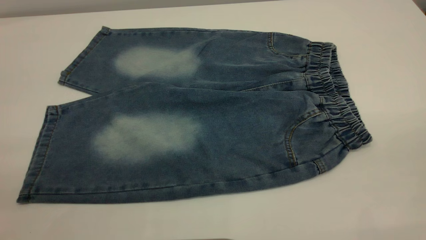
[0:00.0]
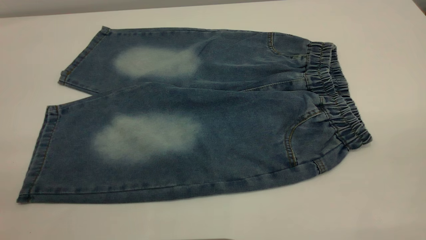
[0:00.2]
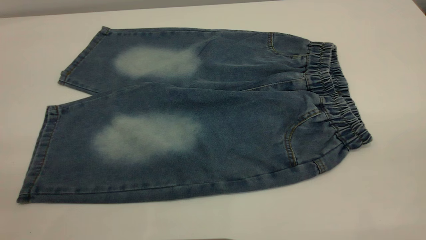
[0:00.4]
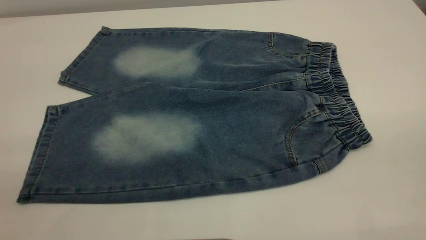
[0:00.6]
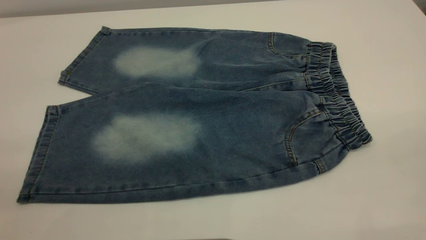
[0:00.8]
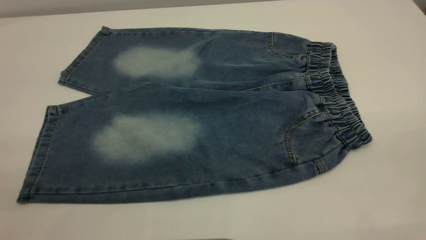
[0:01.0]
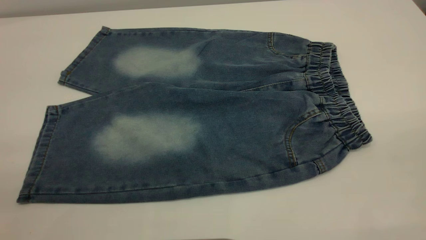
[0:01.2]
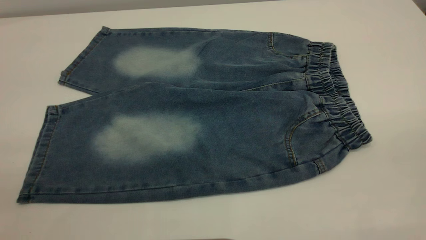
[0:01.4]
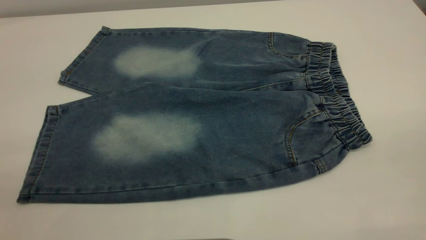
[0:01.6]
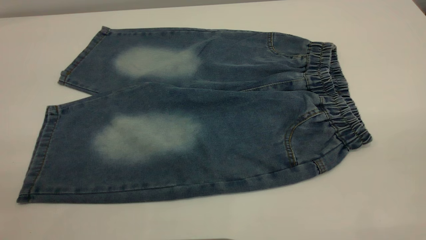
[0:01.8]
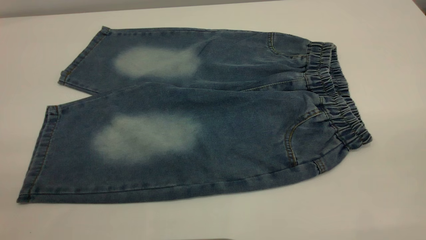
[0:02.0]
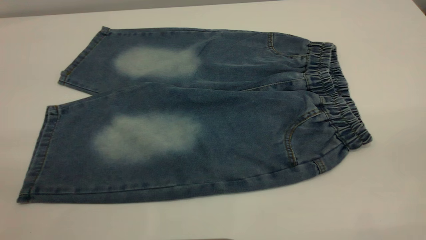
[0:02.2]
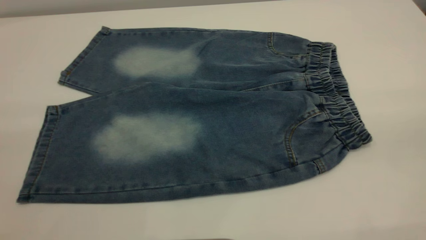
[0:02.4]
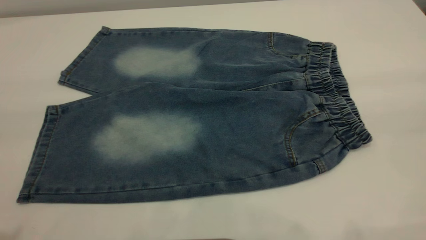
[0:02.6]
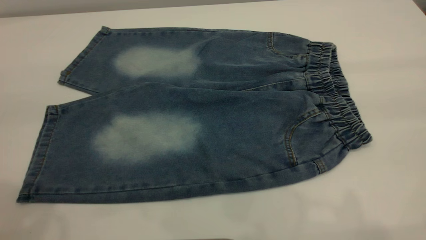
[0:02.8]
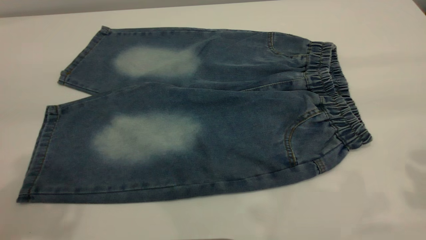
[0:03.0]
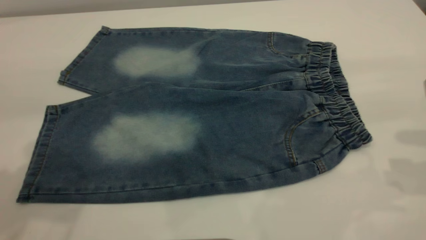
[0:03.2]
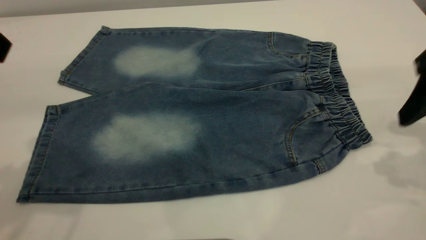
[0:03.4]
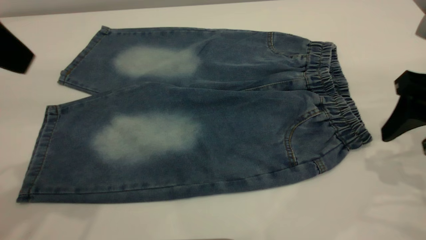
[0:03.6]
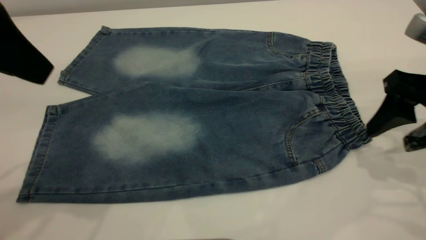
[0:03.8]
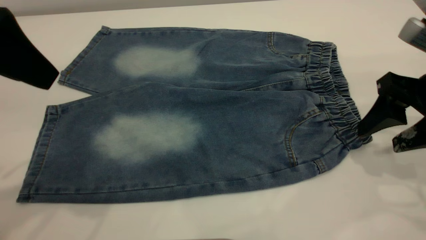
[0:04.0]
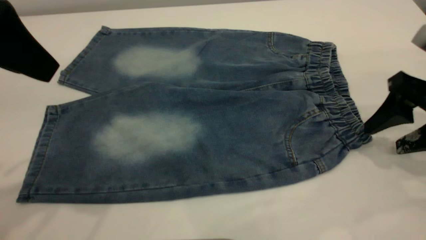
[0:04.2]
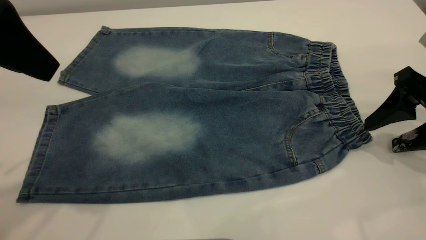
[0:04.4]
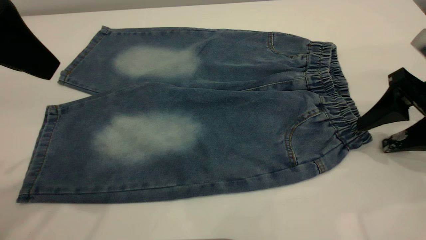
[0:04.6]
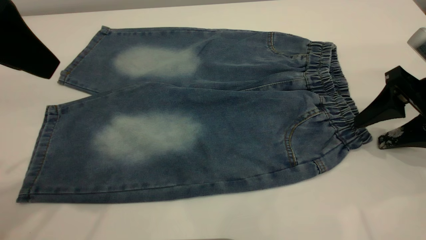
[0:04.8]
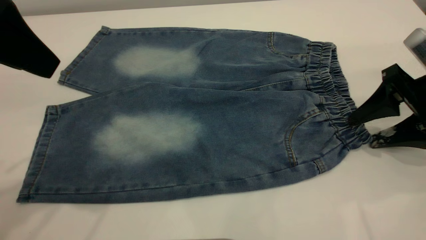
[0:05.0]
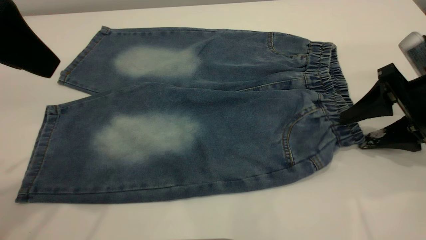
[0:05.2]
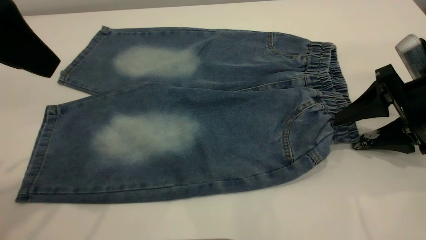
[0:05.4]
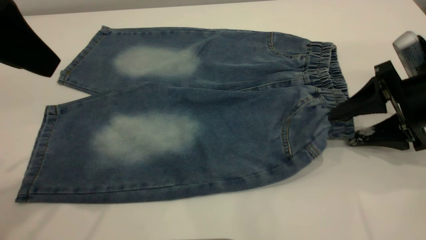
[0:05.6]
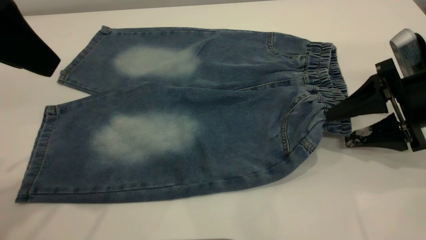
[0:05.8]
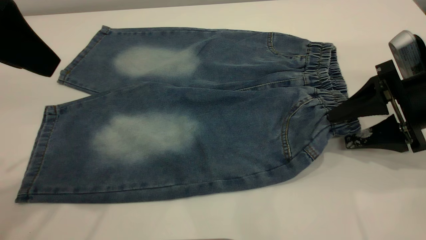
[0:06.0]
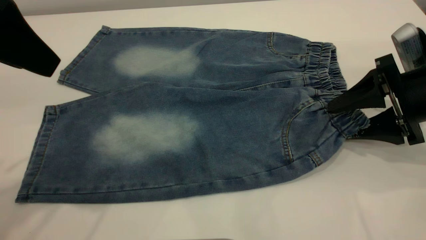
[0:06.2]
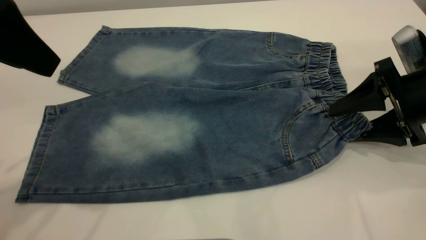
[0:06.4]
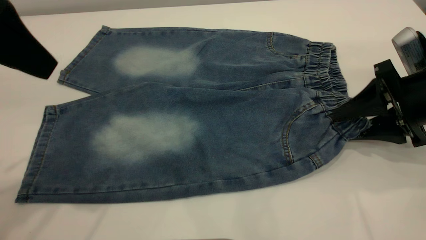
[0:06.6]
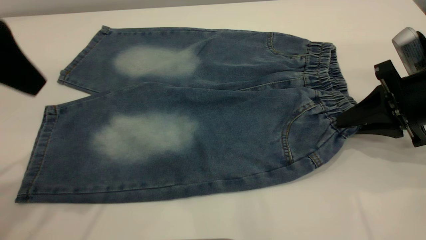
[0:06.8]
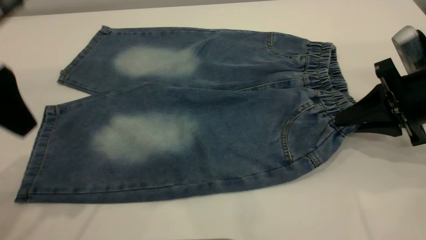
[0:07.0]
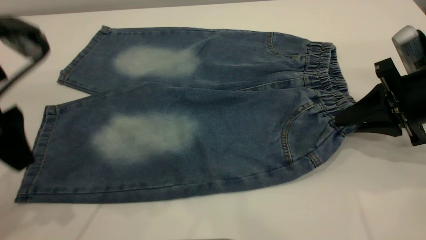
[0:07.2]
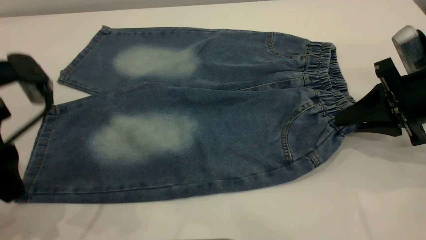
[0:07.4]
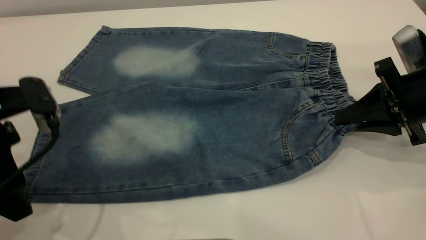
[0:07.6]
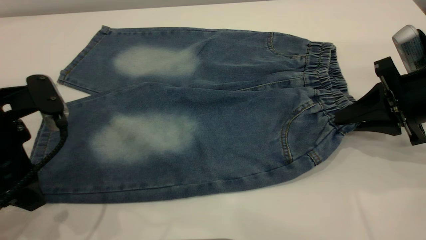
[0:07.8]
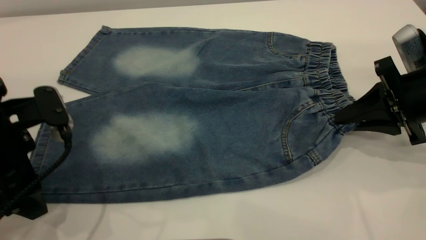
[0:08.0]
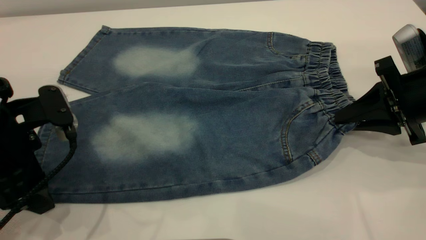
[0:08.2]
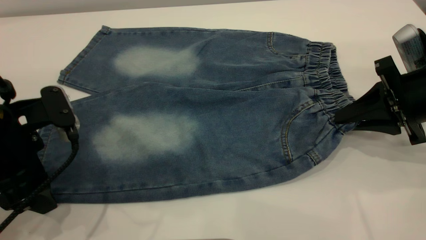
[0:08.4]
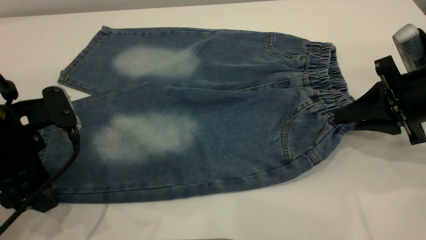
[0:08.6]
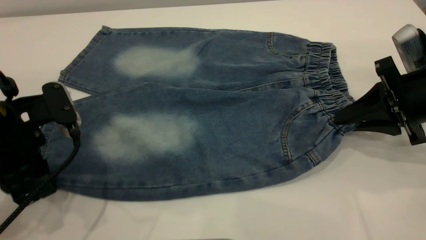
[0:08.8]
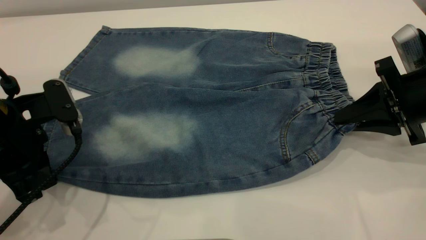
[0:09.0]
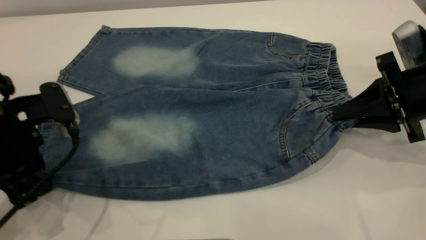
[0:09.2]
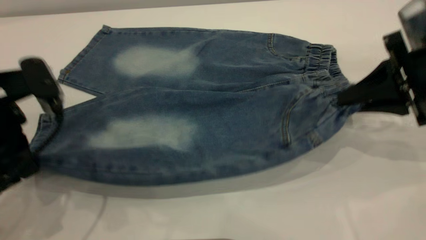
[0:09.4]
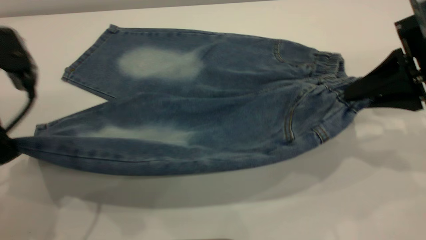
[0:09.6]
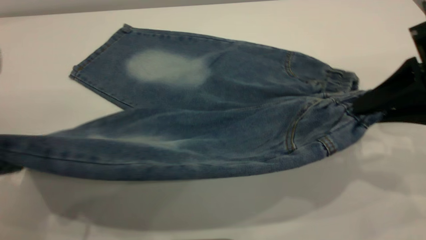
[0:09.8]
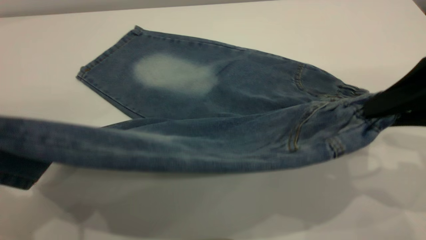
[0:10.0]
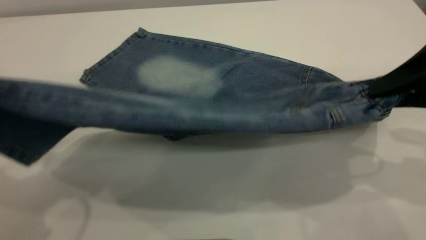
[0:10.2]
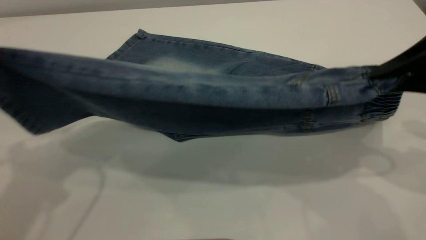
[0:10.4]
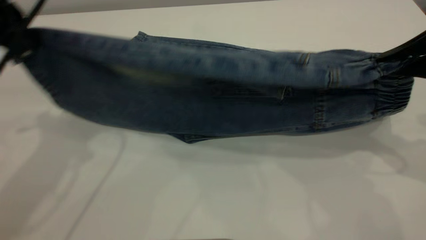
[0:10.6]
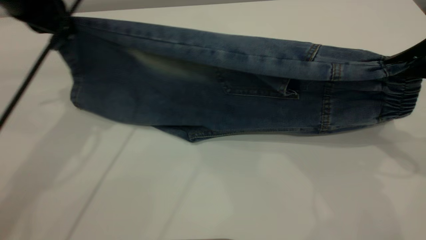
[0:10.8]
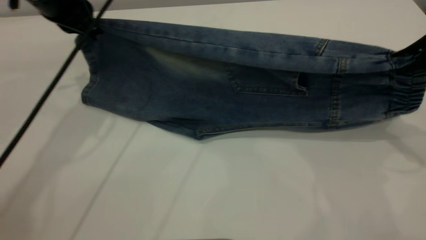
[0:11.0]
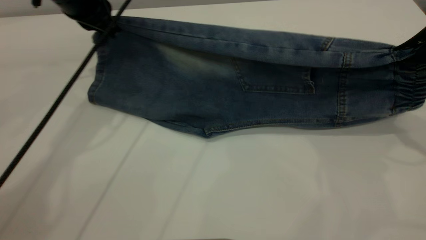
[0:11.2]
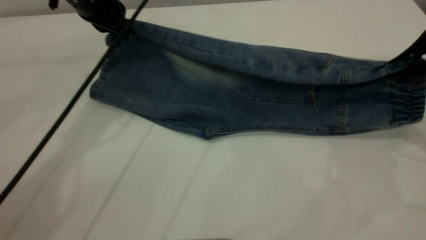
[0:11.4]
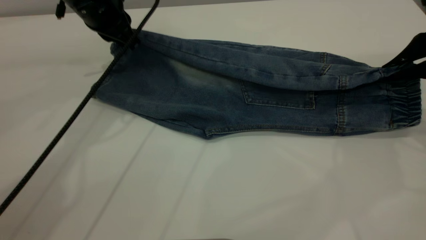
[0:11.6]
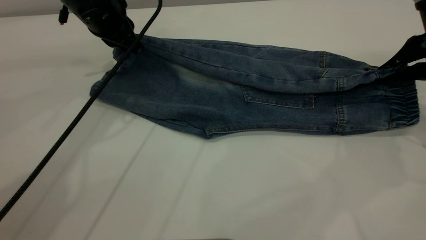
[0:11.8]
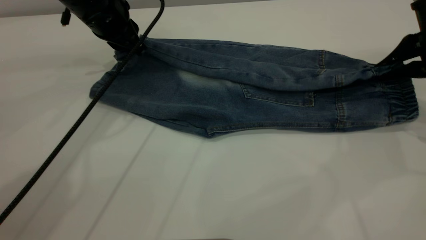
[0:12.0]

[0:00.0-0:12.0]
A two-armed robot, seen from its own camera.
0:00.0 to 0:01.6: The two grippers keep their place.
0:03.0 to 0:04.4: The left gripper moves roughly 5 cm; the right gripper heads downward and forward, covering about 15 cm.
0:06.0 to 0:07.6: The right gripper closes up, while the left gripper is displaced downward by some 15 cm.
0:07.6 to 0:09.0: The left gripper closes its fingers.
0:09.0 to 0:10.4: The left gripper goes approximately 15 cm upward, while the right gripper heads upward and backward, covering about 10 cm.
0:10.4 to 0:12.0: The left gripper travels forward, downward and to the right by about 25 cm. Meanwhile the right gripper is displaced forward and downward by about 10 cm.

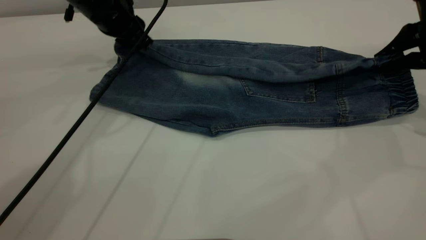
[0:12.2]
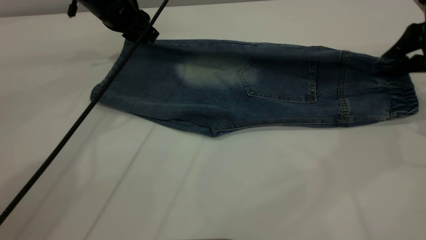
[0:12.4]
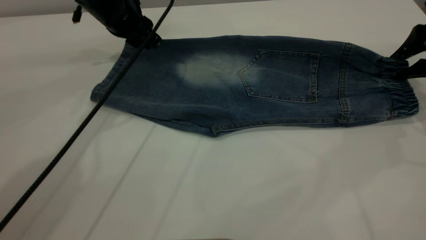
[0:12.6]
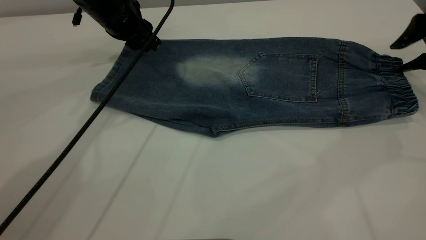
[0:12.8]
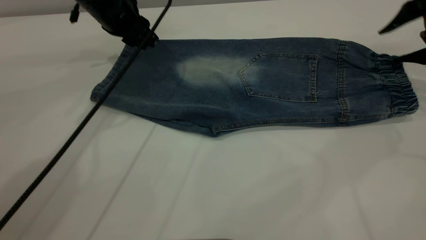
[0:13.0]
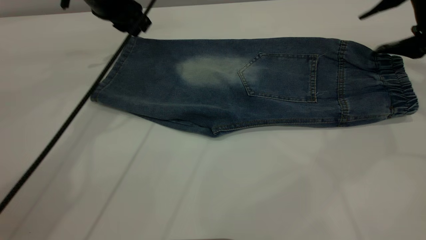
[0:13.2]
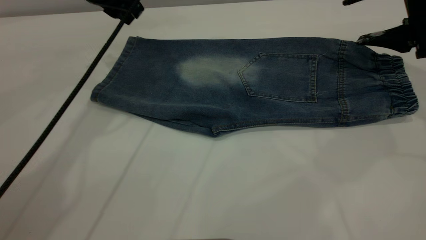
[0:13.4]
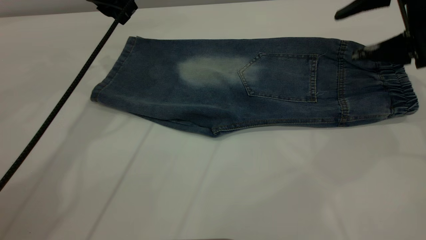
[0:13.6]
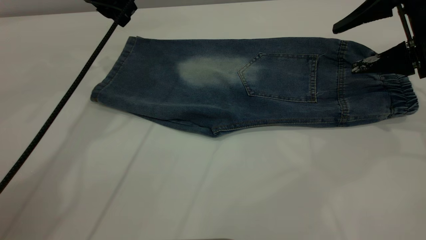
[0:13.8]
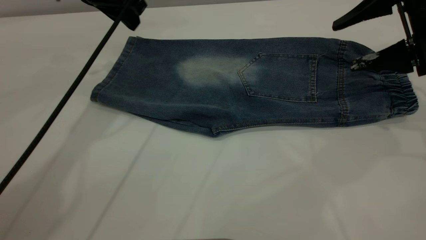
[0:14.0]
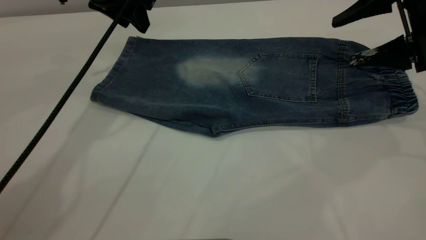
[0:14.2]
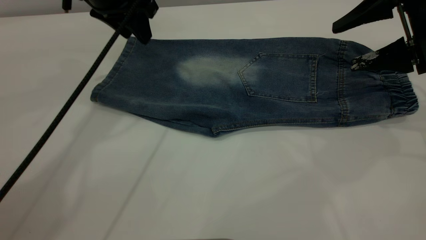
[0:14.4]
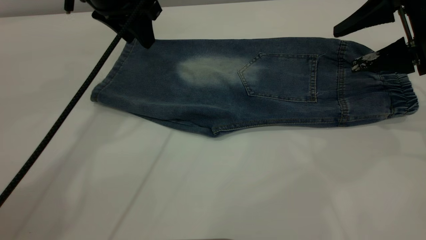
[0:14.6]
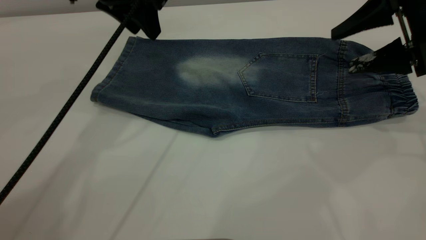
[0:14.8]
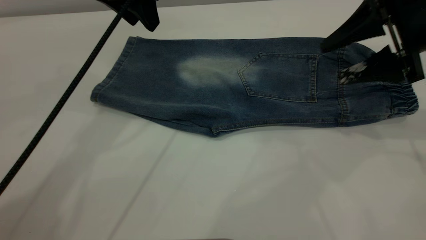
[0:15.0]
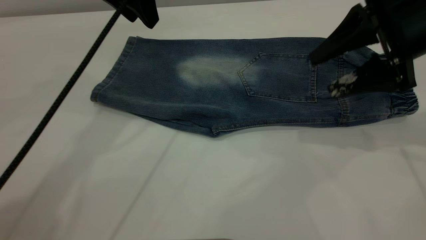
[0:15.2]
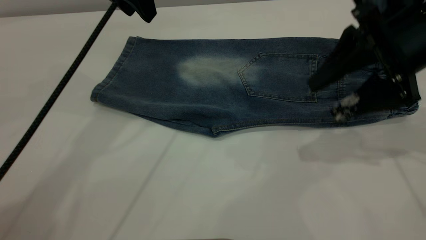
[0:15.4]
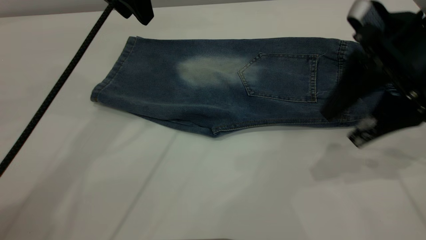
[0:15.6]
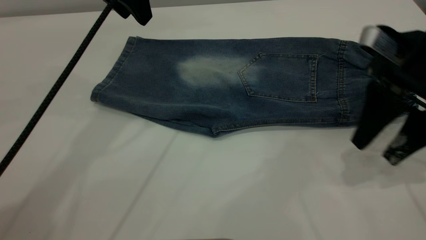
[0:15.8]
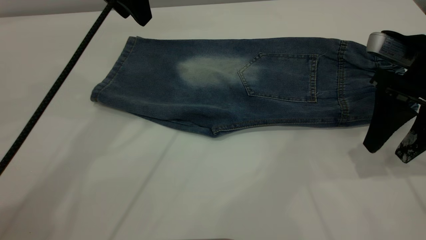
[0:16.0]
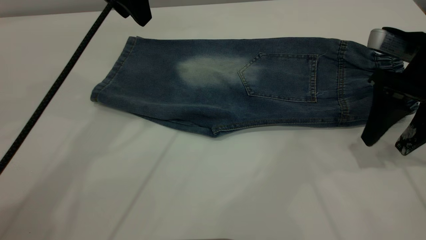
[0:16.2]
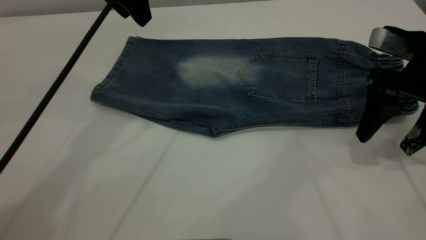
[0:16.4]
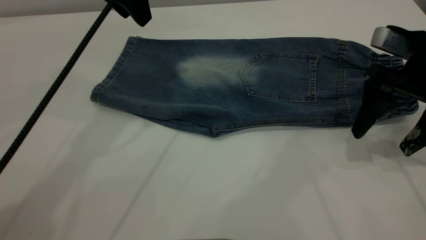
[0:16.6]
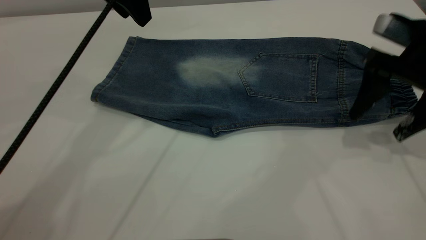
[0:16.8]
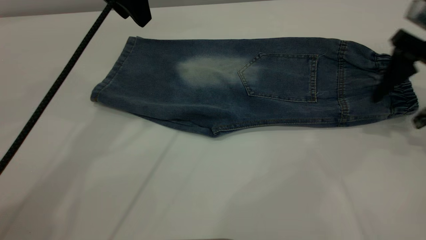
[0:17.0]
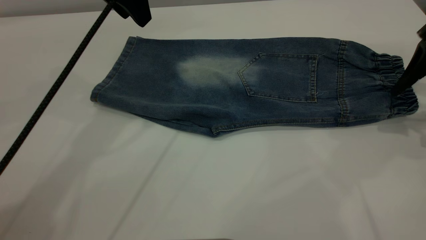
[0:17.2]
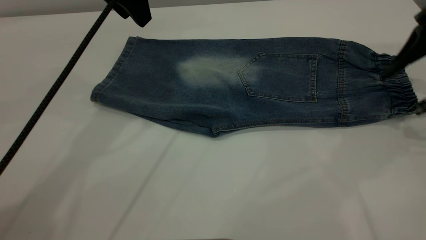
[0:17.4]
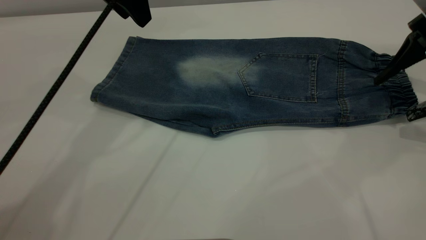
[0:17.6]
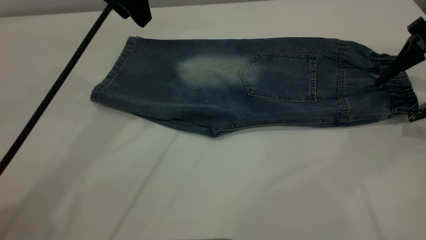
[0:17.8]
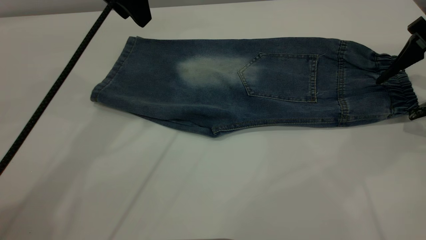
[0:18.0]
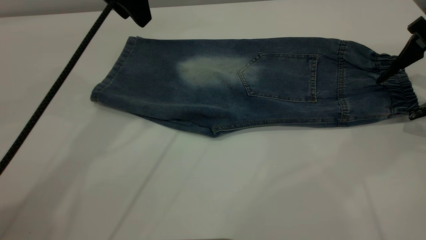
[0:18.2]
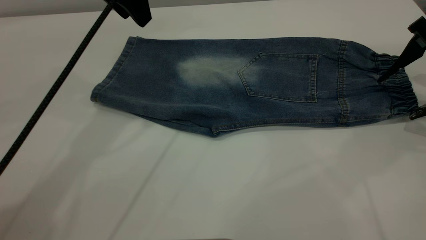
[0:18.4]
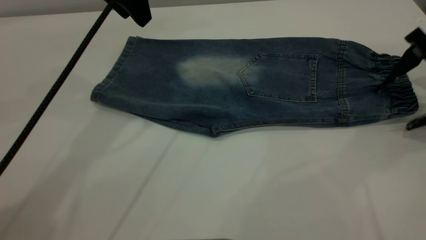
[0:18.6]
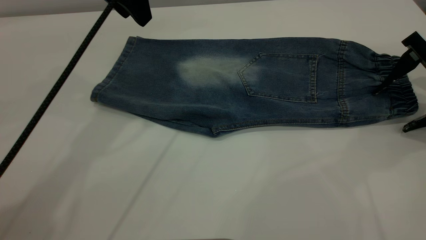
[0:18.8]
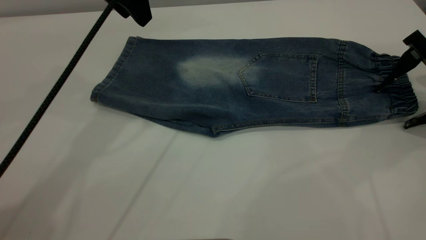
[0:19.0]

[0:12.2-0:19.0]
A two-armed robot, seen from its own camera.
0:12.2 to 0:13.6: The left gripper shifts roughly 5 cm upward, while the right gripper opens.
0:13.6 to 0:15.0: The left gripper changes place by about 5 cm.
0:16.2 to 0:17.6: The right gripper goes roughly 5 cm to the right.
0:17.6 to 0:19.0: There are only small adjustments of the grippers.
